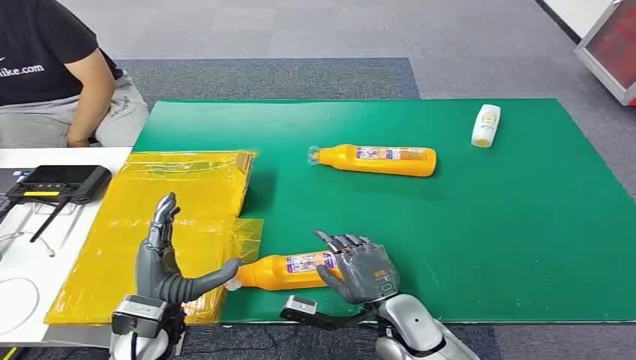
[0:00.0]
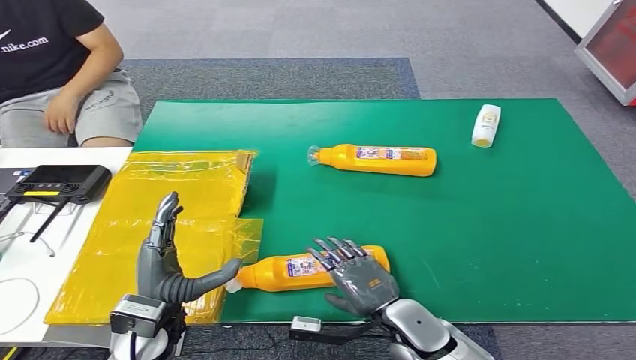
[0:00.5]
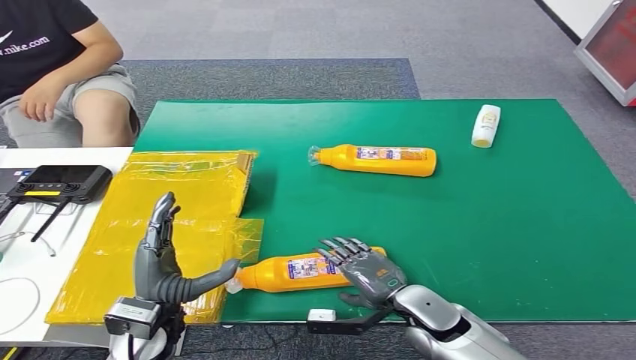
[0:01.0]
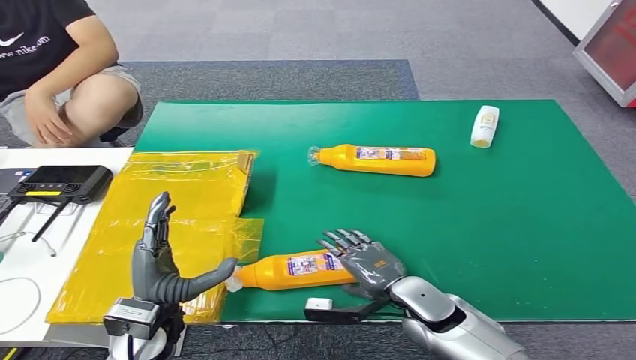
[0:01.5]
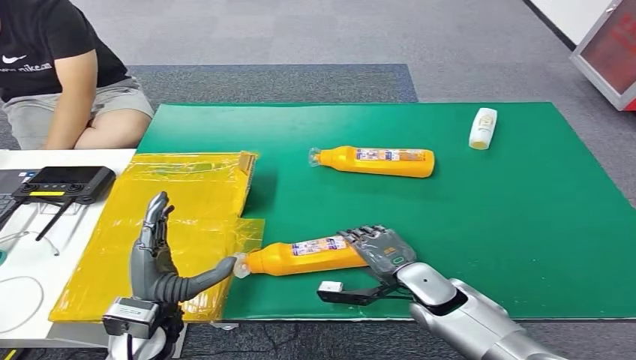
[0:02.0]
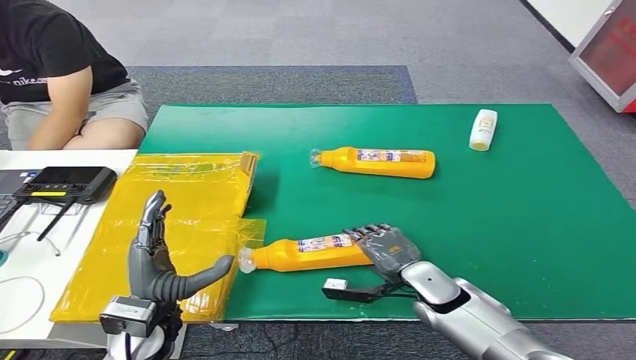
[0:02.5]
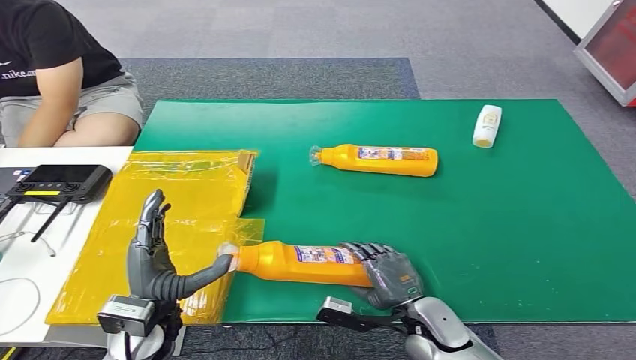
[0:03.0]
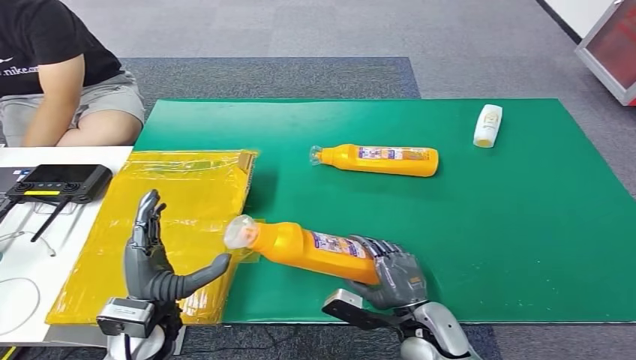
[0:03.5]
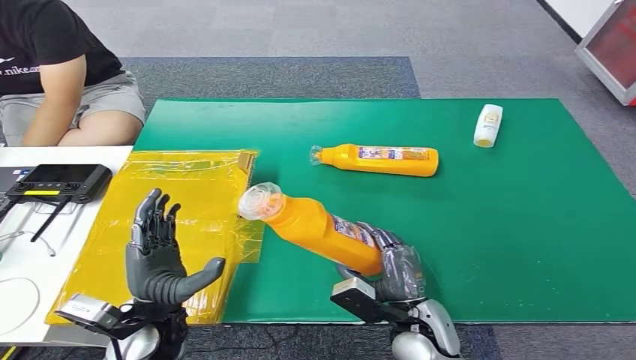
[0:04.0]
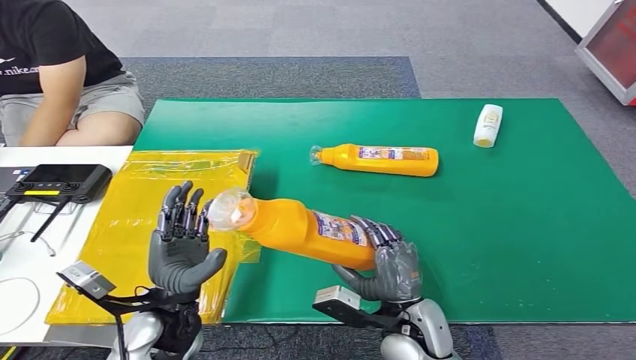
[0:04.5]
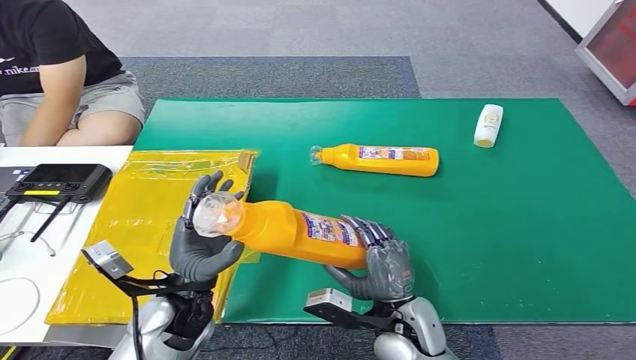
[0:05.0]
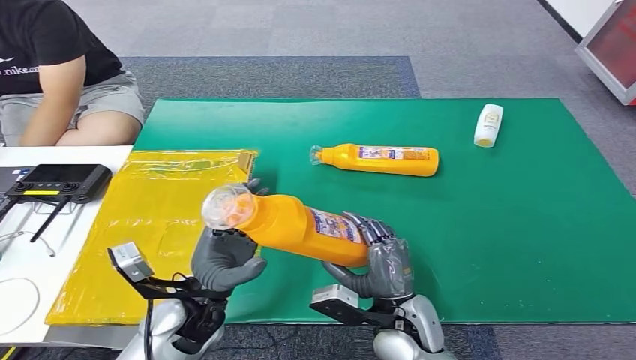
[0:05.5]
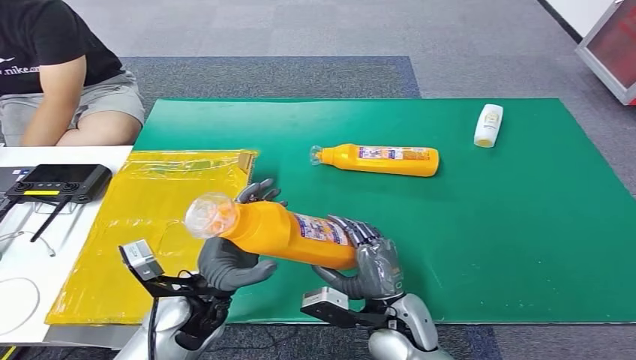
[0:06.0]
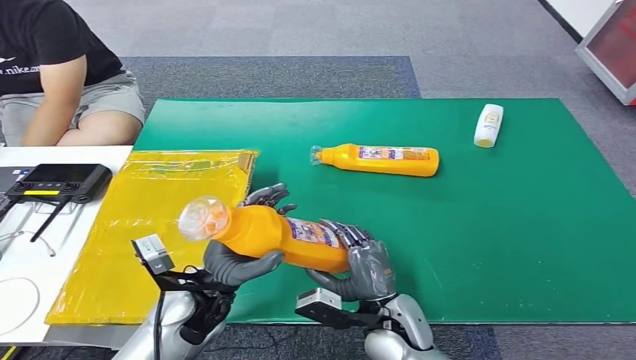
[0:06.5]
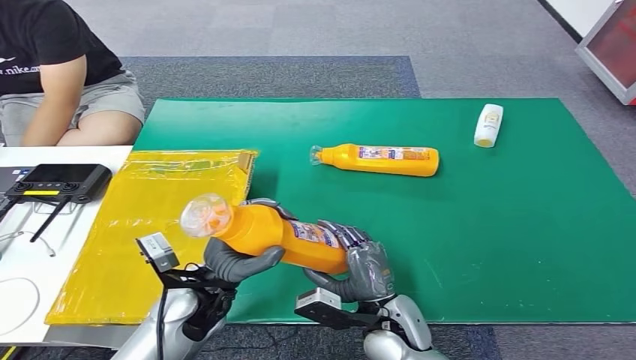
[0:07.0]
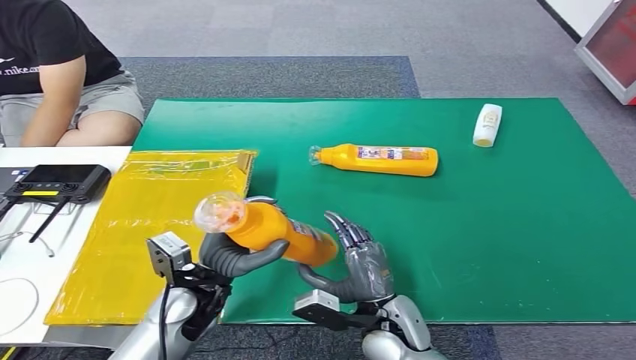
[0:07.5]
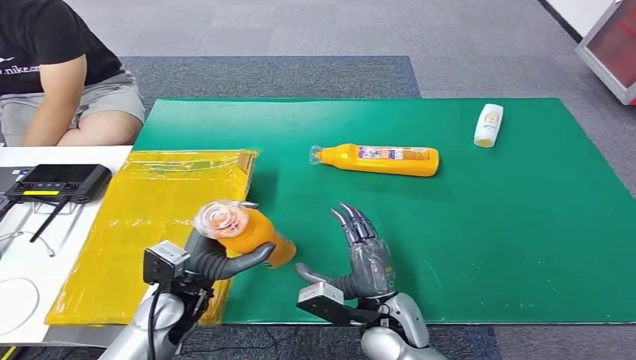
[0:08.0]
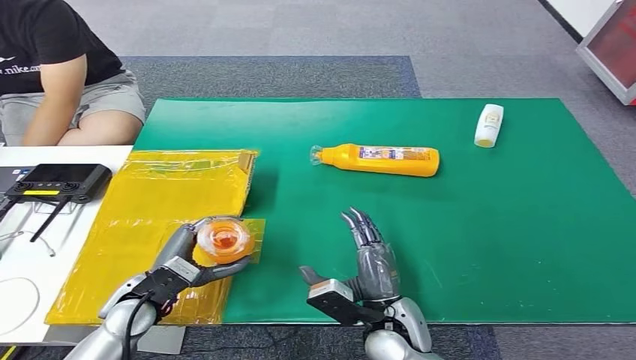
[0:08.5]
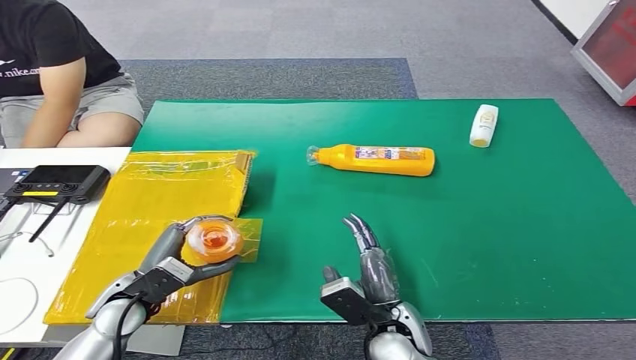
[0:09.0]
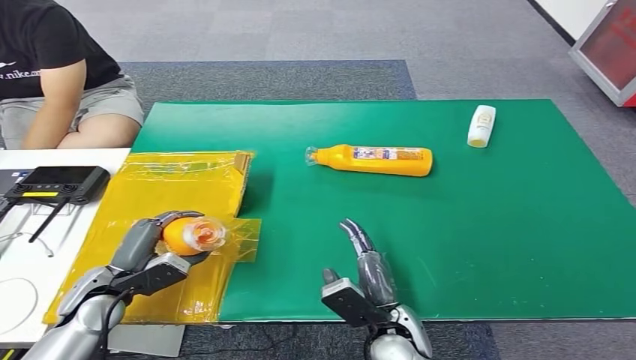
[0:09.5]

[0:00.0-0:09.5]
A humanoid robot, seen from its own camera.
Step, 0:00.0 to 0:03.5: Pick up the bottle from the table.
0:04.0 to 0:05.5: The left hand changes place by approximately 5 cm.
0:07.5 to 0:09.5: The left hand moves to the left, some 15 cm.

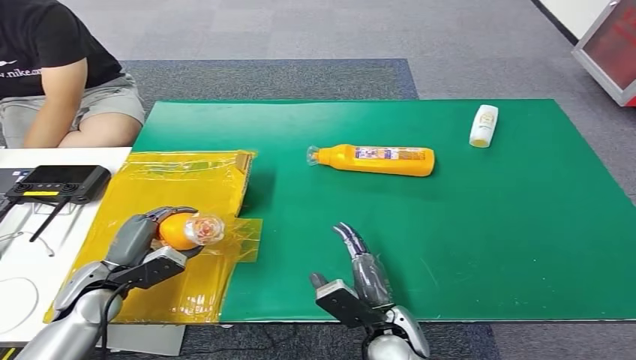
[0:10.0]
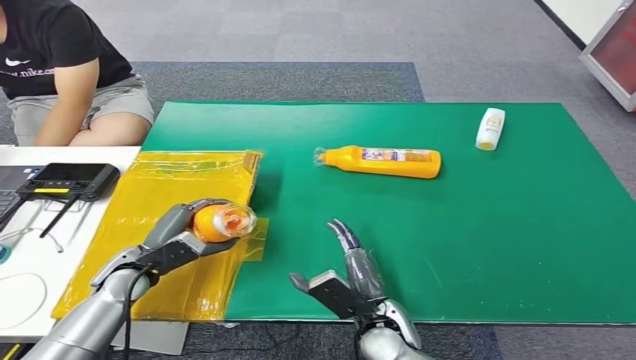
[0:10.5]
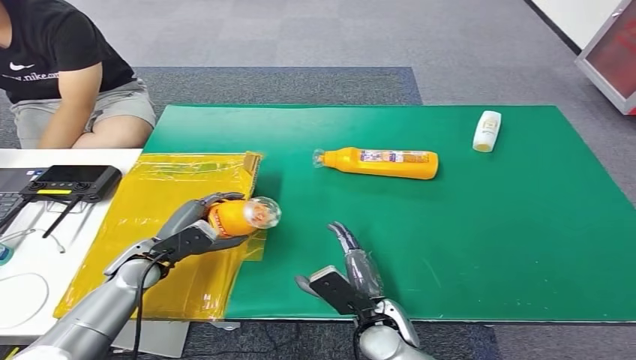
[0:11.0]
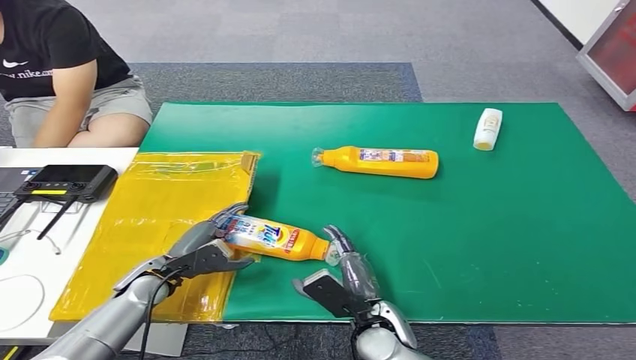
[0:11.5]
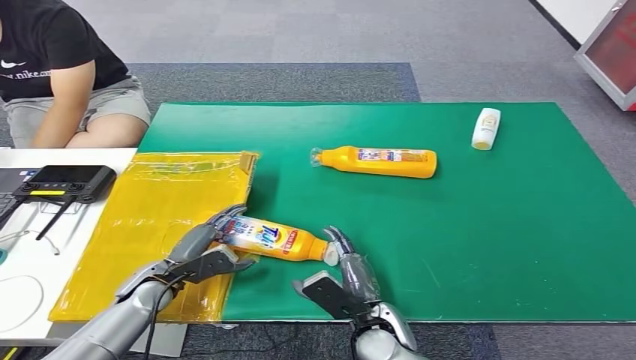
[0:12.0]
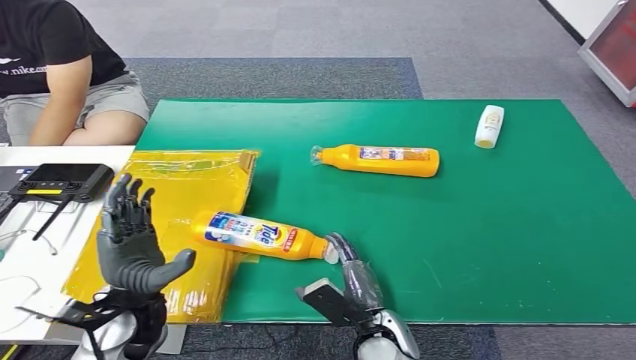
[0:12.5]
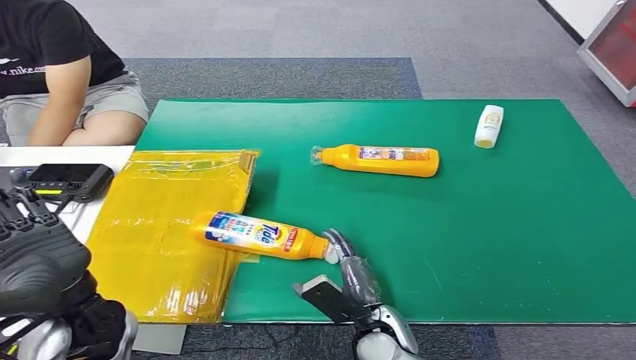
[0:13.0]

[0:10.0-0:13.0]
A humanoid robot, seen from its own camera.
Step, 0:10.0 to 0:13.0: Turn the bottle to the front side.

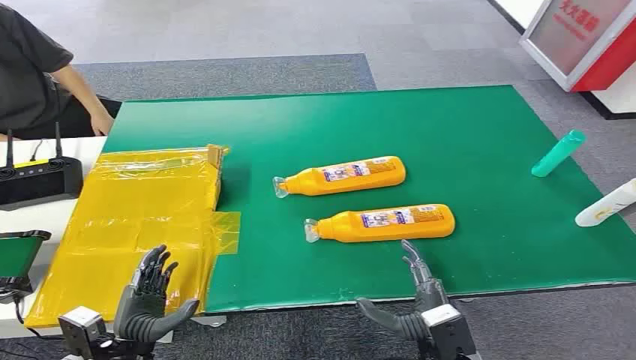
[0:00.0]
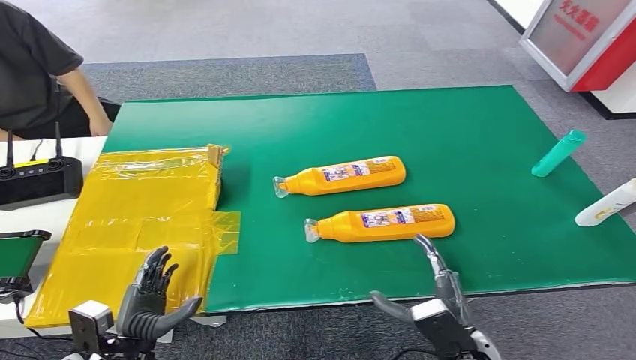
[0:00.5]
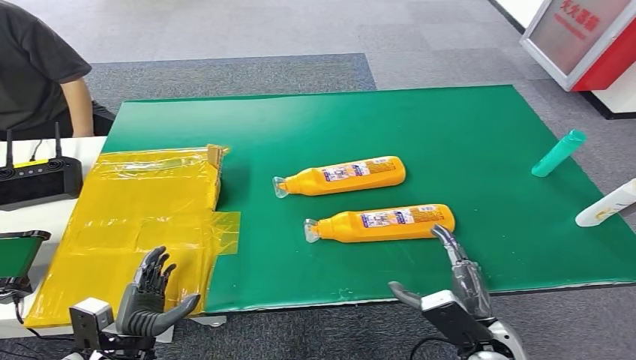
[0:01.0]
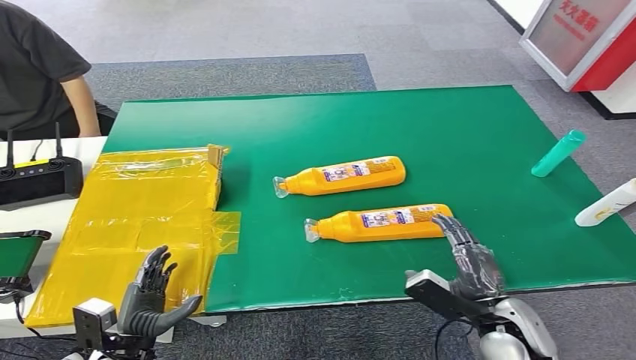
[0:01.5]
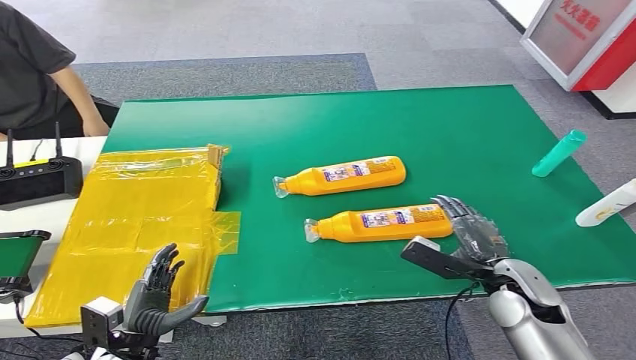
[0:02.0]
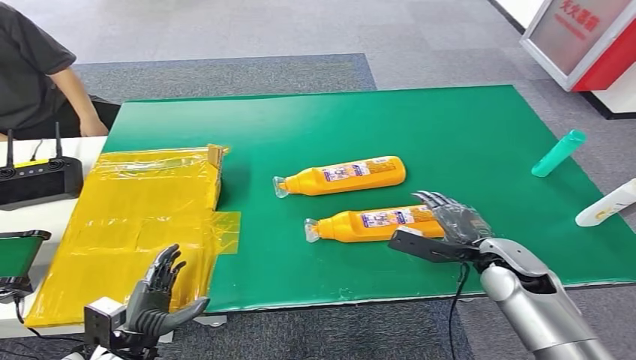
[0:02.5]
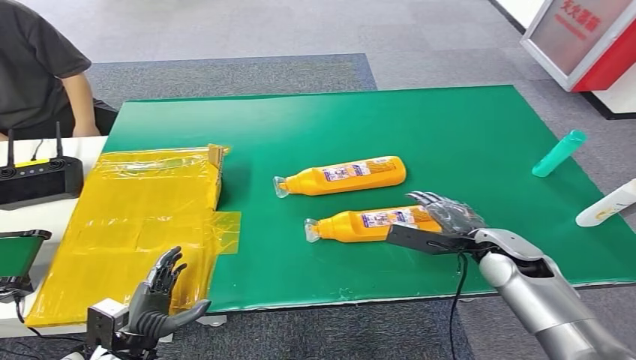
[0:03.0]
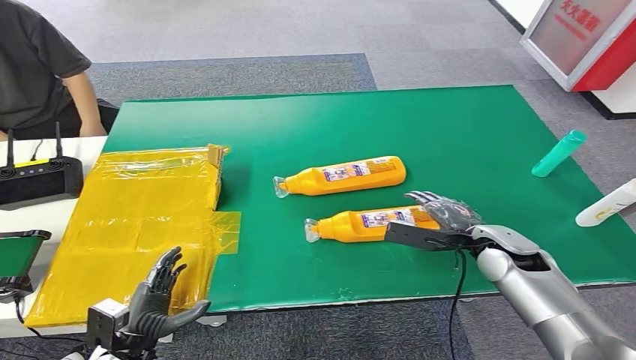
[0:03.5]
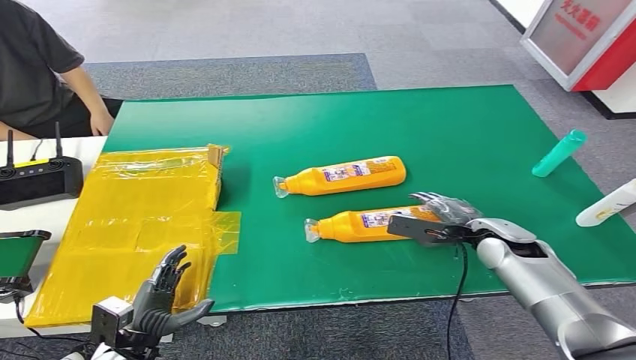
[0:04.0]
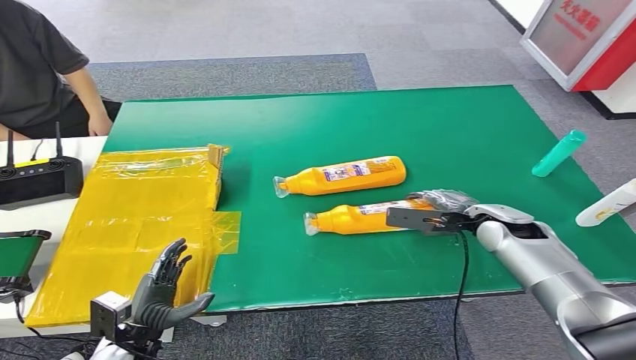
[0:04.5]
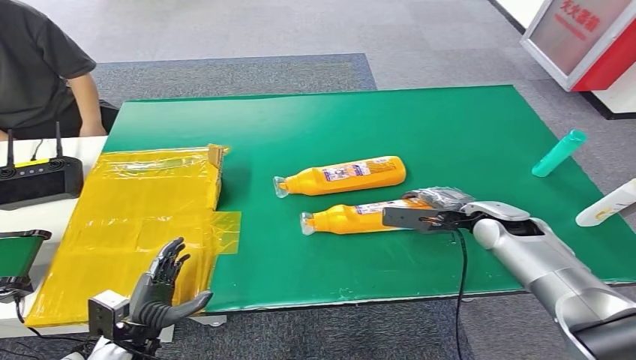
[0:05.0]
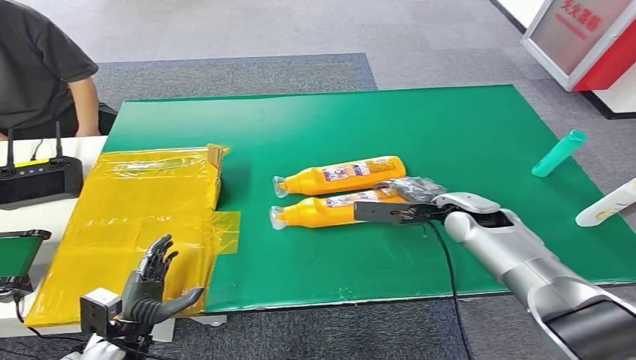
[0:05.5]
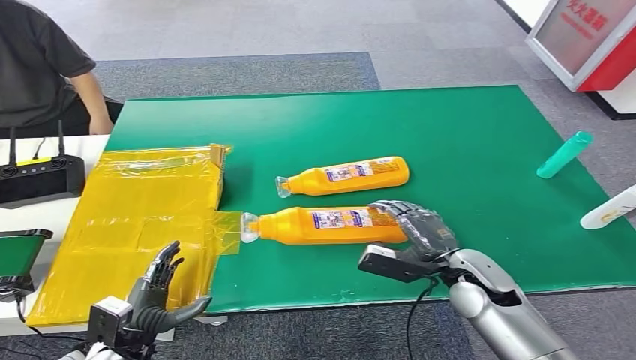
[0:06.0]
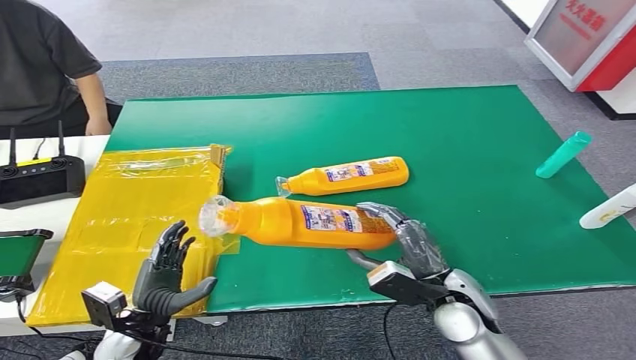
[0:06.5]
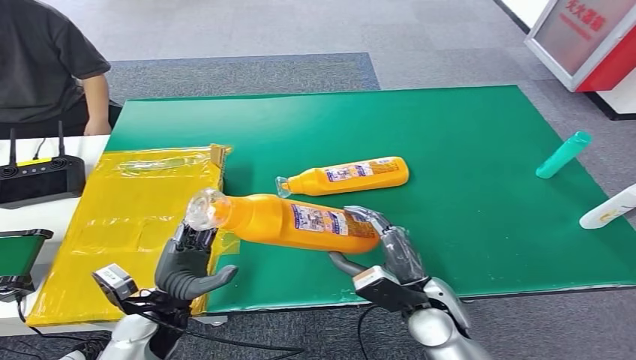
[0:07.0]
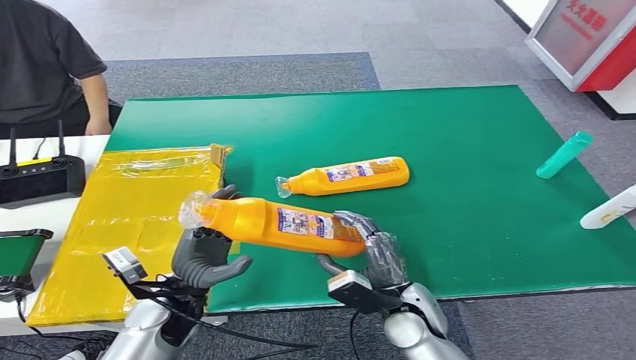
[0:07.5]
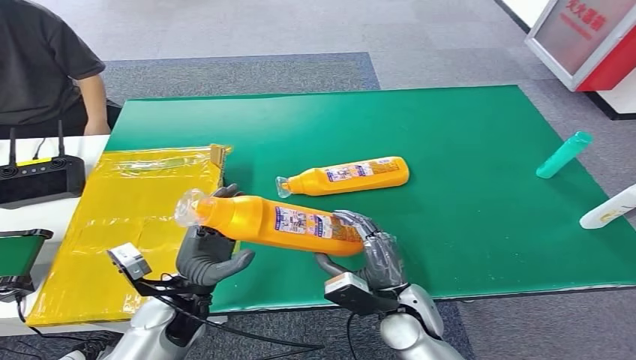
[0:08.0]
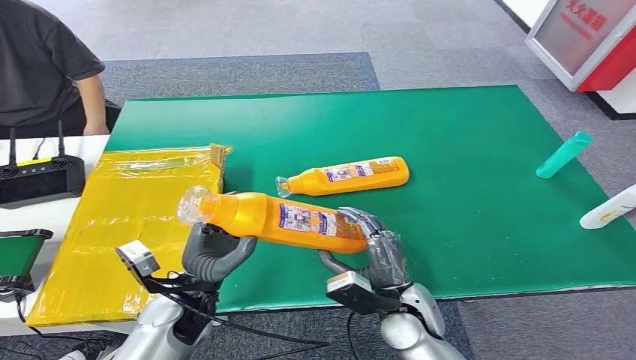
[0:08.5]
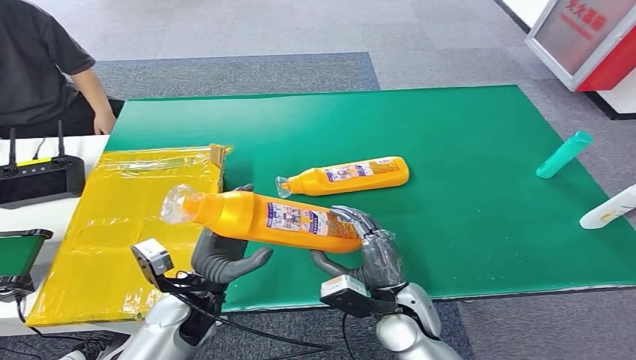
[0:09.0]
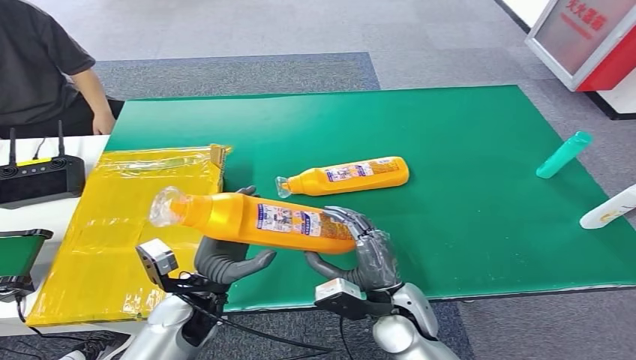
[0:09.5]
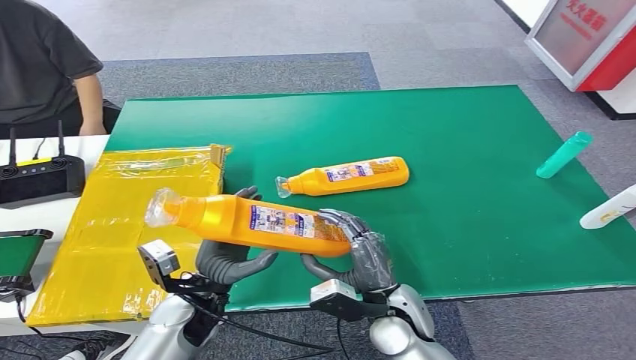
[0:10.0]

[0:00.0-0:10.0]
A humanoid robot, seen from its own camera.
Step, 0:00.0 to 0:06.5: Pick up the bottle from the table.
Step, 0:07.0 to 0:10.0: Turn the bottle to the front side.
0:02.0 to 0:04.0: The right hand moves forward, about 10 cm.
0:04.0 to 0:06.0: The right hand shifts approximately 10 cm backward and to the left.
0:06.0 to 0:08.0: The right hand moves to the left and backward, approximately 10 cm. Meanwhile the left hand heads to the right, upward and forward, covering roughly 15 cm.
0:08.0 to 0:10.0: The hands stay close to where they were, moving slightly.
